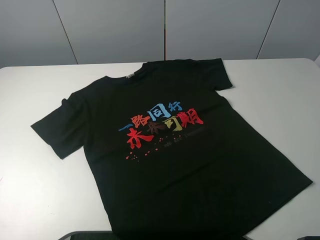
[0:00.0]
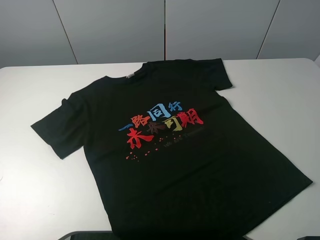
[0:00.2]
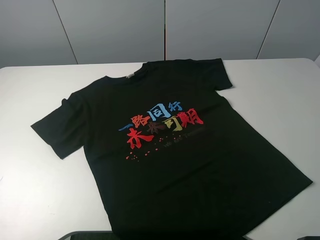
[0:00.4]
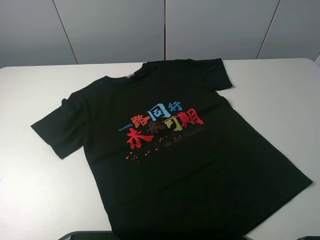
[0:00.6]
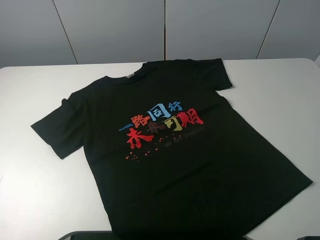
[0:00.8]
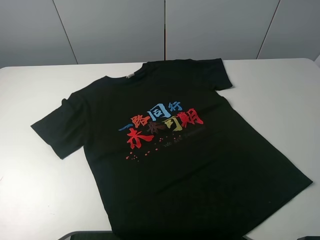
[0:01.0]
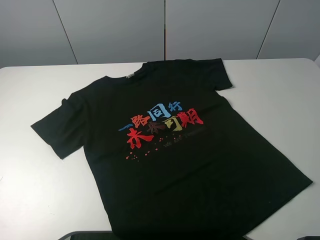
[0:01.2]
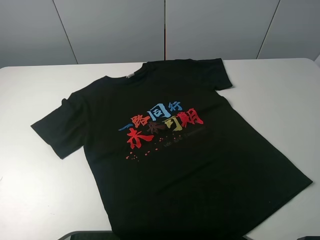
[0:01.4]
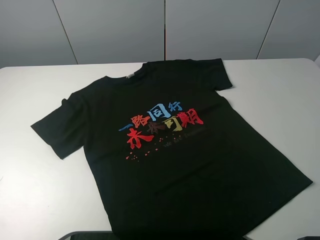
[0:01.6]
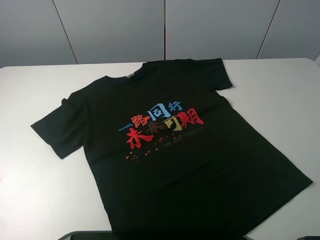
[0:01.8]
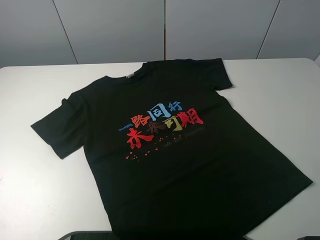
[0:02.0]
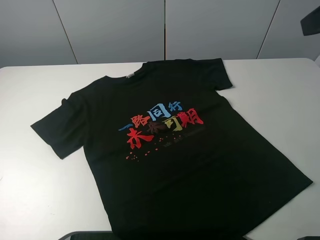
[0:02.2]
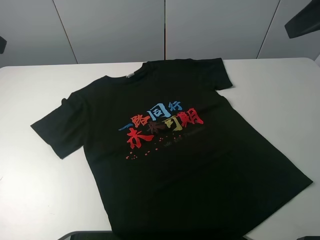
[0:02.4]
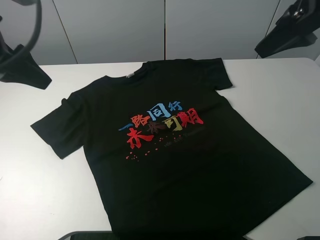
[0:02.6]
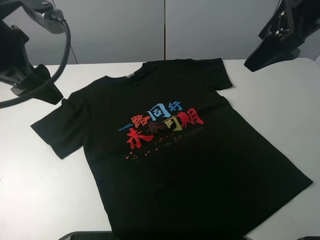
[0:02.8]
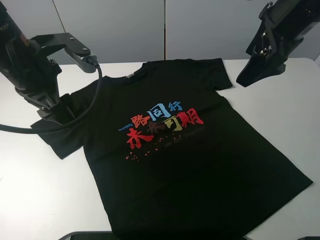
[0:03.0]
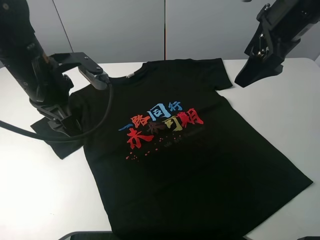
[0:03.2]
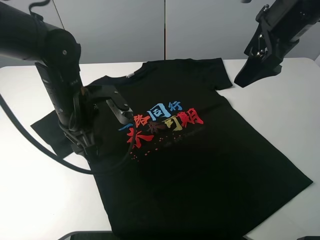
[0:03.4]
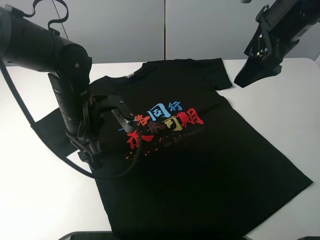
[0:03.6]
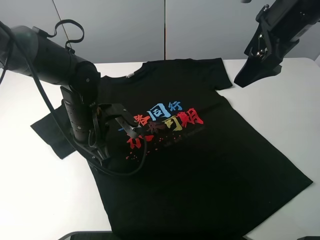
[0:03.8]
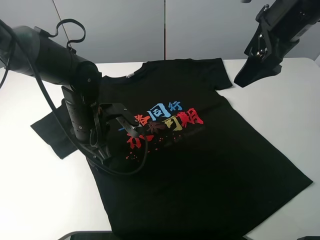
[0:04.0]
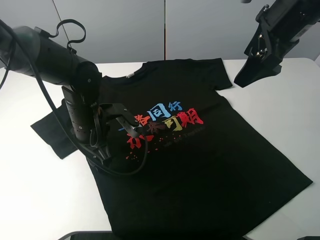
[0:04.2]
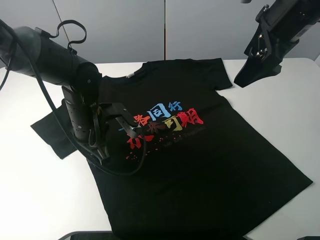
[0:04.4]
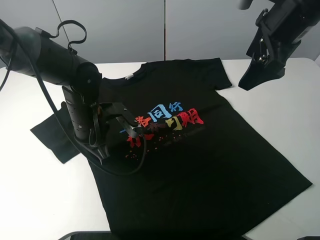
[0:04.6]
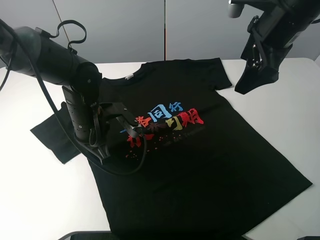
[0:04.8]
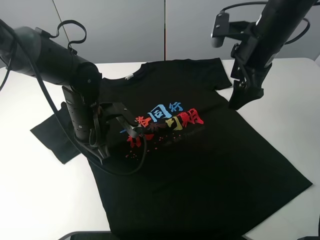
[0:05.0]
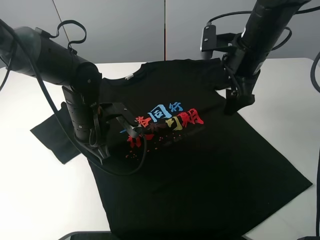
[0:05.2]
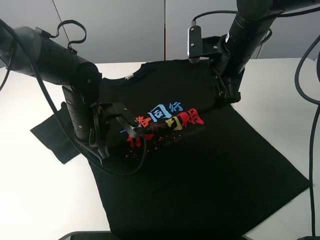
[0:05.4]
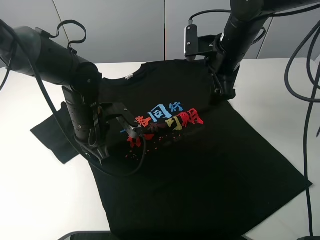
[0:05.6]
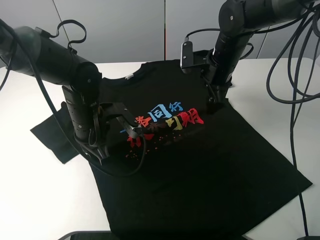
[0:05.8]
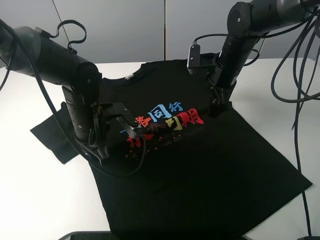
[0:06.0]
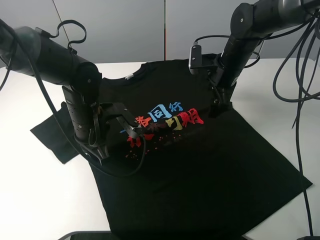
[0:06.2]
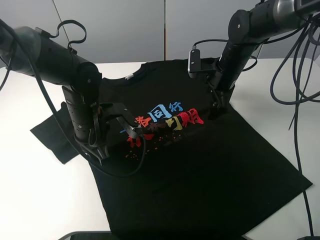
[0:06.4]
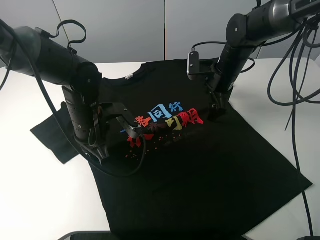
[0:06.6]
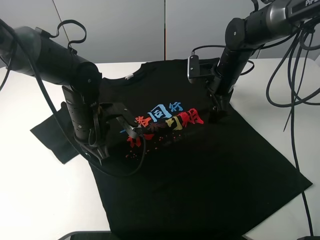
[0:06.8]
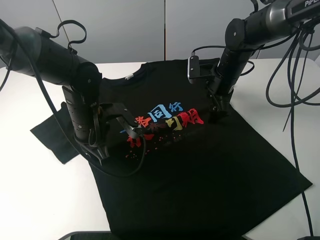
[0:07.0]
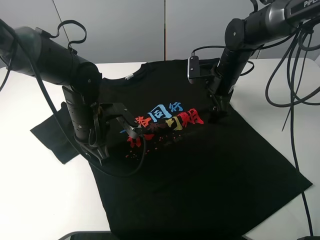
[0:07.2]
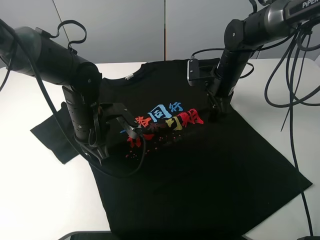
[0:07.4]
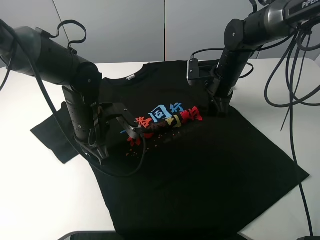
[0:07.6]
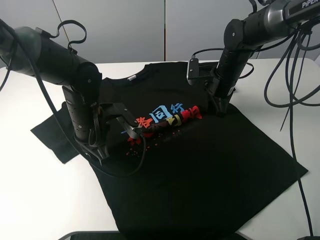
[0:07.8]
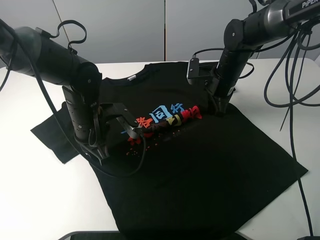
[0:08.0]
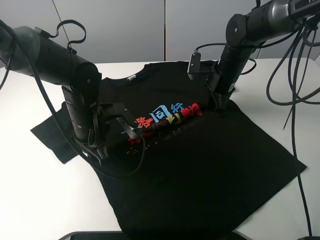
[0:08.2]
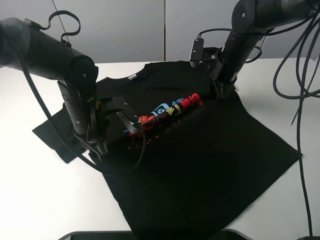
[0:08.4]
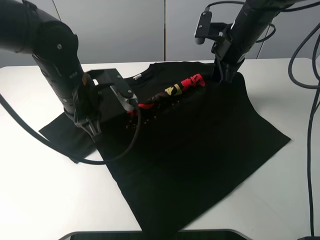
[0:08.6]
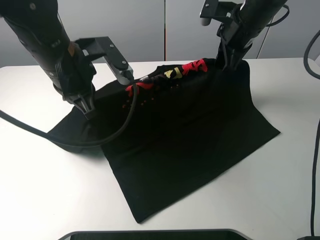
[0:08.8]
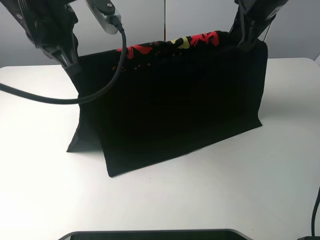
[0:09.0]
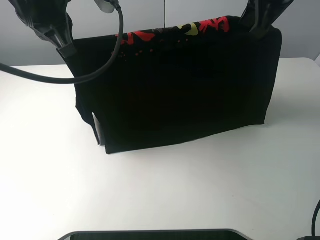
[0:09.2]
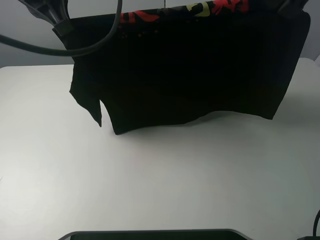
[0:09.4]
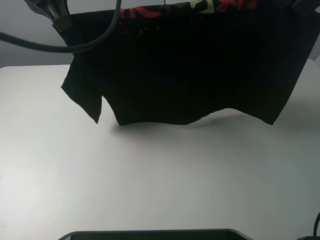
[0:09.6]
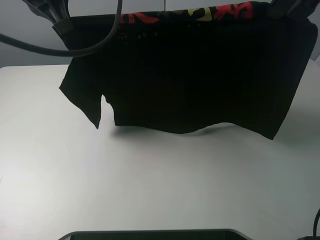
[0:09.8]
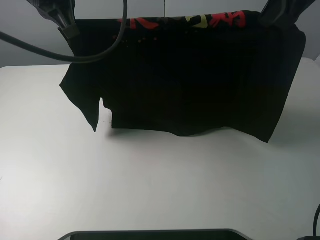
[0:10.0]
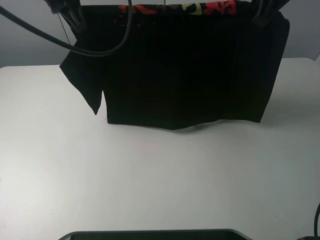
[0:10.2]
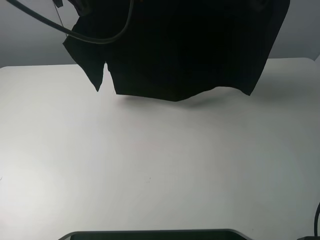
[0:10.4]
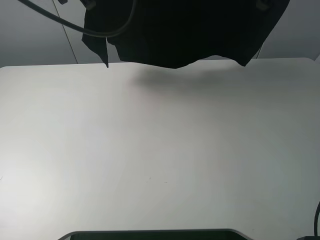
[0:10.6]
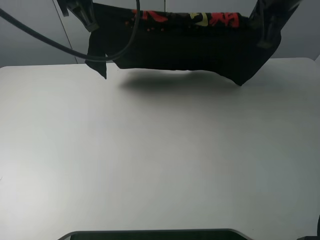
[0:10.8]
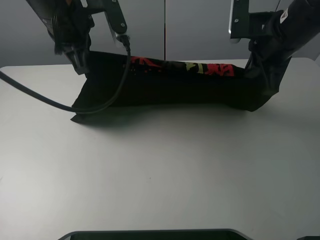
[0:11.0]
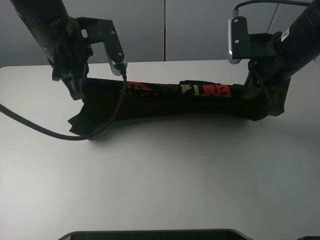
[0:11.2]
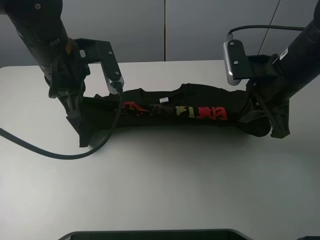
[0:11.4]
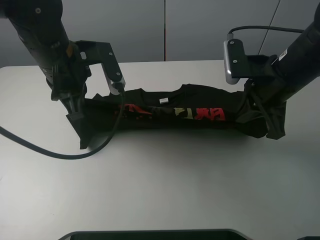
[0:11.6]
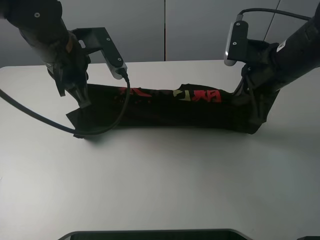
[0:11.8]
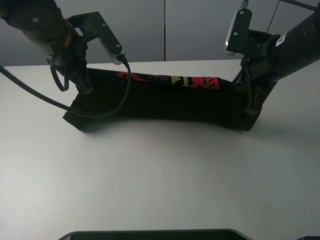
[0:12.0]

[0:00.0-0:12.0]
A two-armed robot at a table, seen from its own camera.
Task of the whole recording: fold the clothes on the table.
Step, 0:00.0 to 0:07.8: Lift the black T-shirt with the left gripper.
0:01.6 to 0:03.0: The right gripper is displaced forward by roughly 25 cm; the left gripper goes some 25 cm forward, to the right and downward.
0:03.0 to 0:04.4: The left gripper goes some 15 cm downward and to the right.
0:04.4 to 0:06.0: The left gripper closes up, while the right gripper is displaced downward and forward by some 15 cm.
0:06.0 to 0:07.6: The right gripper closes.
0:07.6 to 0:09.0: Both grippers travel together upward, some 20 cm.
0:09.0 to 0:10.4: The left gripper goes about 5 cm forward; the right gripper heads upward, covering about 5 cm.
0:10.4 to 0:12.0: The right gripper moves downward and backward, roughly 15 cm. Meanwhile the left gripper heads downward, covering some 10 cm.

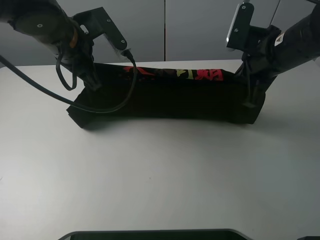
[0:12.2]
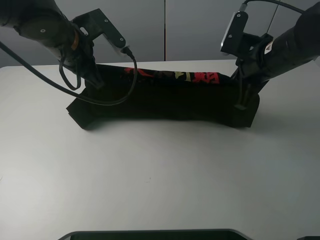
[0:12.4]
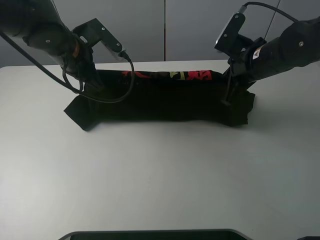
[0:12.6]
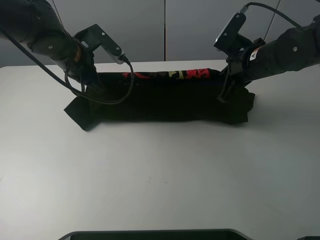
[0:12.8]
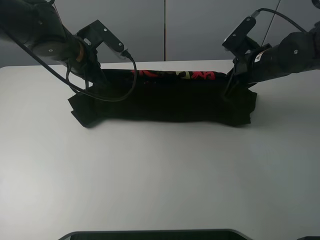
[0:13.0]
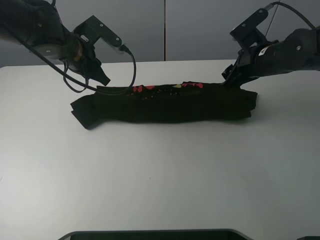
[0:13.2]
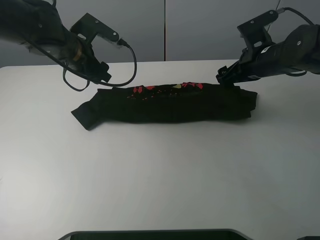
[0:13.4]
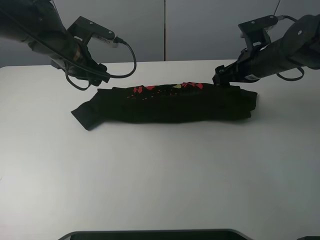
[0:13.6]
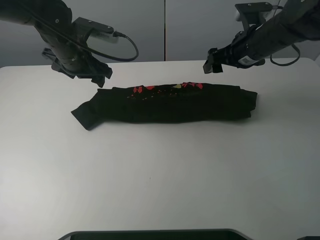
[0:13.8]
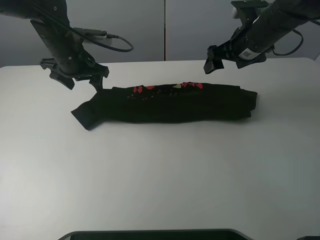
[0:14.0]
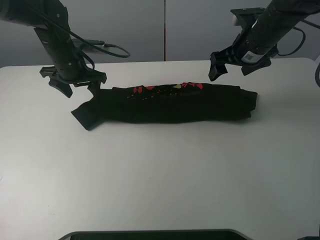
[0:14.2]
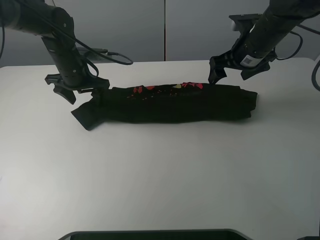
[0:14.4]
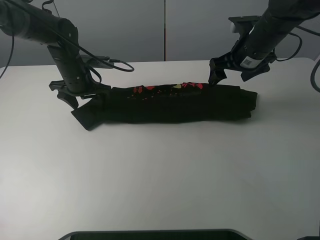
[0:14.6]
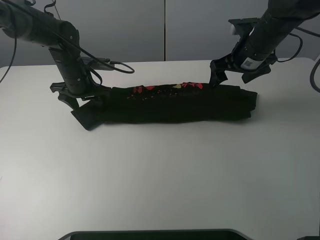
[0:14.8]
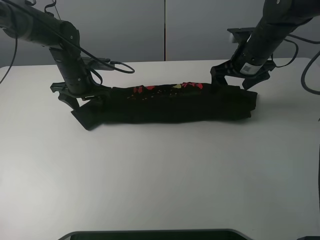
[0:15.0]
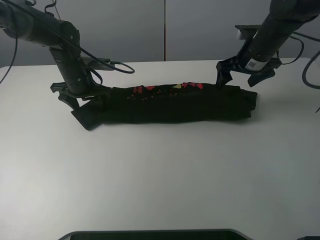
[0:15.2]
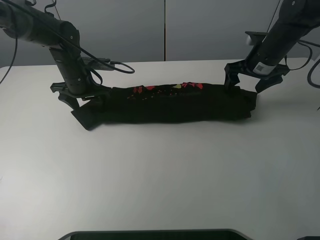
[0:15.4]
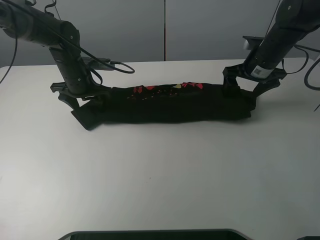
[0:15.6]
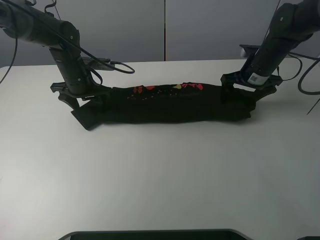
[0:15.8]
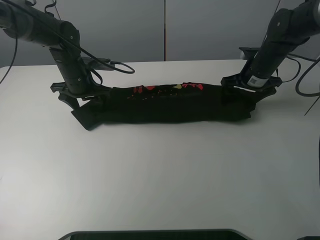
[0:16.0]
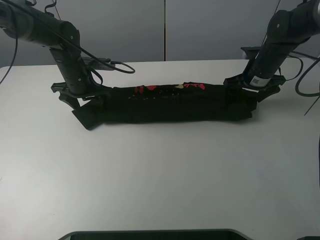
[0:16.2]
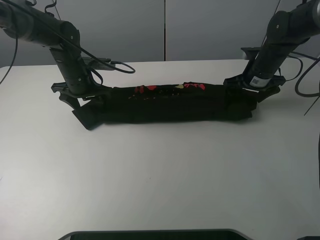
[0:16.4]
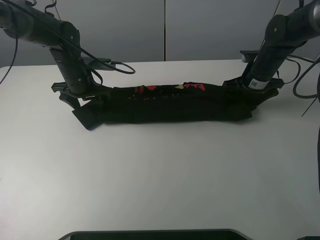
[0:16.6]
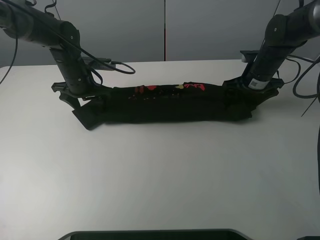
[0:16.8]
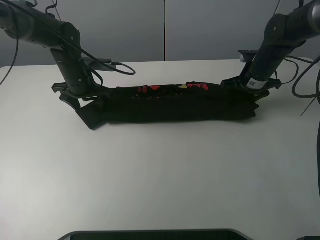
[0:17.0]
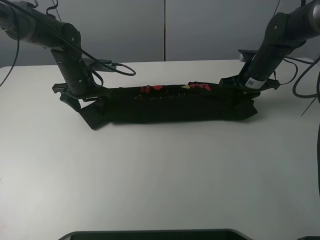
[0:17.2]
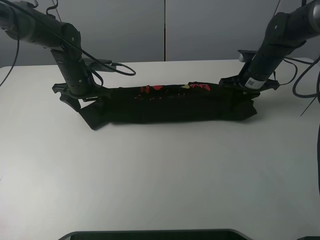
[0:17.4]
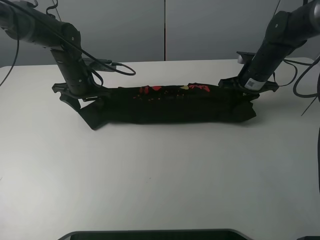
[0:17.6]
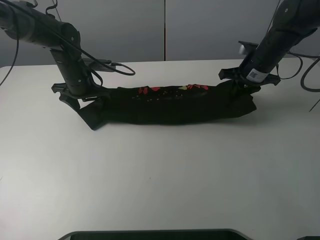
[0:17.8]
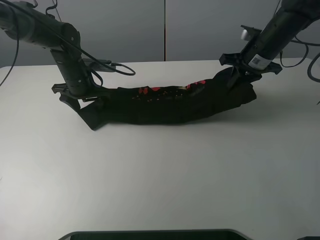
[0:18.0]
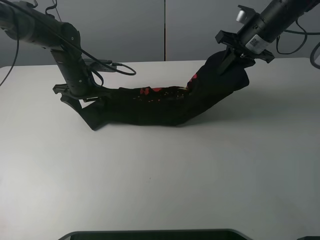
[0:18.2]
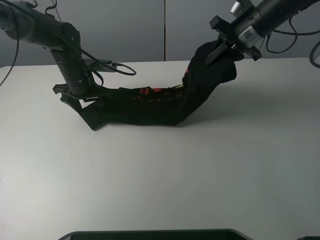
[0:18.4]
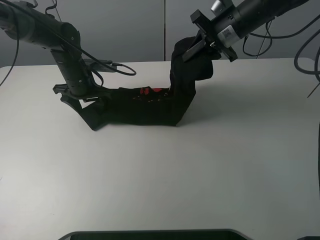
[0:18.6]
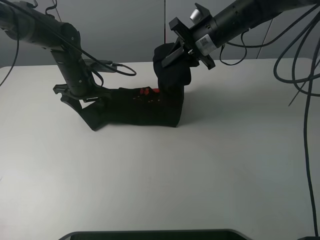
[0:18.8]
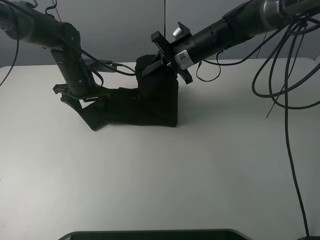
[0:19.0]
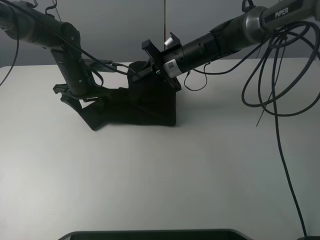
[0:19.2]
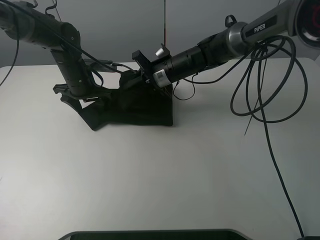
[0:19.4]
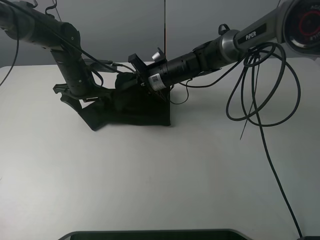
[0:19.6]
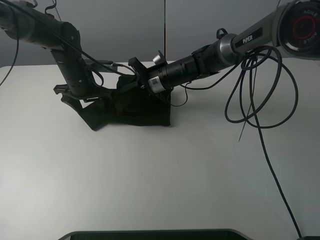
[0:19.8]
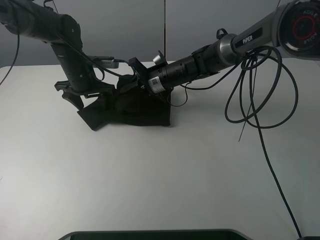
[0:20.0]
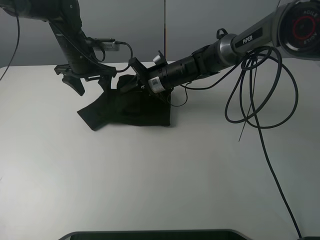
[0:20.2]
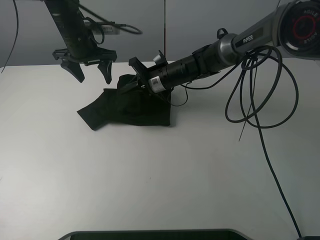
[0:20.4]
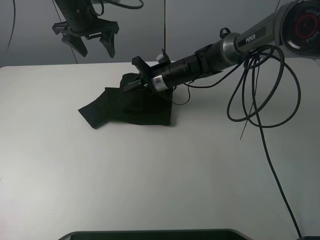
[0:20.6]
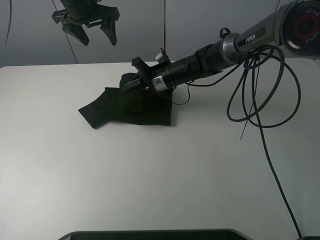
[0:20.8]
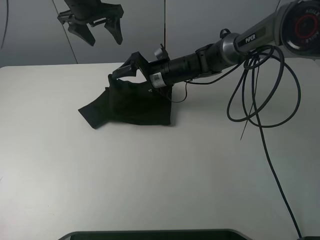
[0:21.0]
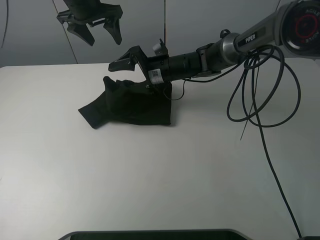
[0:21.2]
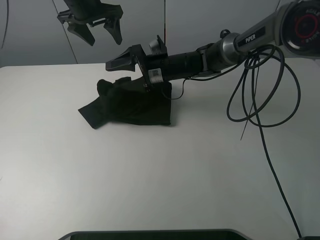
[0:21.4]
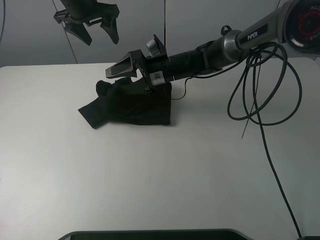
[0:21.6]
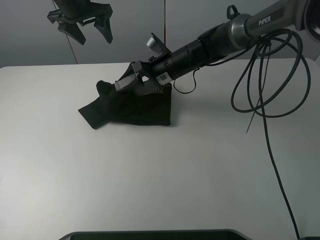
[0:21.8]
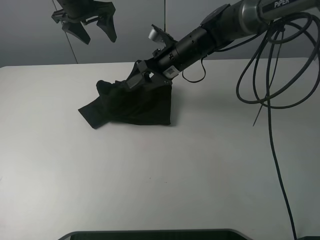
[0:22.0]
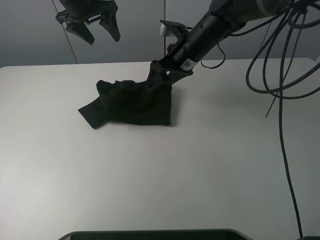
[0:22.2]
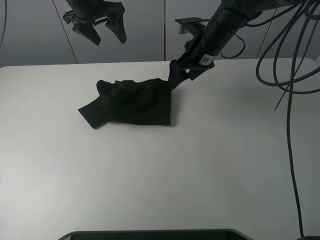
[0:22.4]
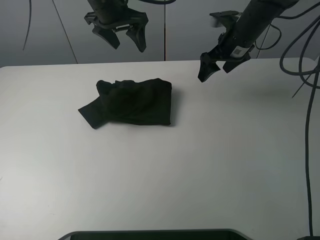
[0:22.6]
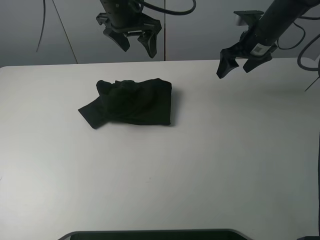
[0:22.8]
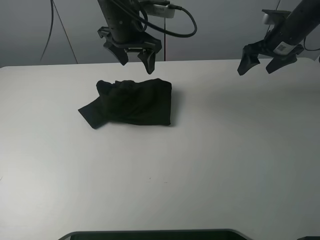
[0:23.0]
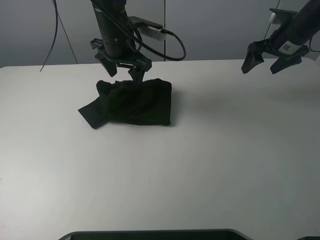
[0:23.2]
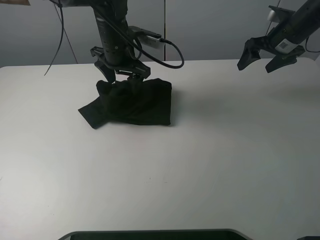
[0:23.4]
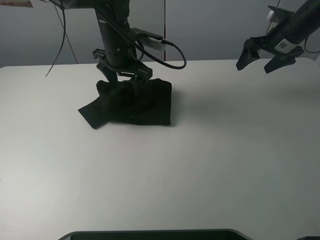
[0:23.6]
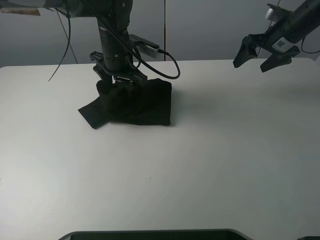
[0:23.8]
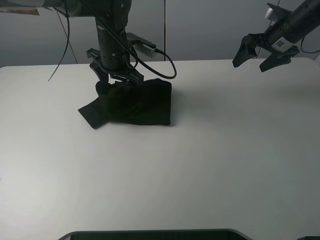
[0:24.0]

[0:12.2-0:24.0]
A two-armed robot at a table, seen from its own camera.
Task of the whole recording: fold the clothes on the table.
Step, 0:13.4 to 0:17.2: Grasp the black T-shirt with the right gripper.
Step, 0:17.4 to 0:21.2: Fold the black T-shirt from right to left with right gripper.
0:12.2 to 0:13.6: The left gripper changes place by roughly 5 cm, and opens. The right gripper shifts some 5 cm forward, and opens up.
0:13.6 to 0:15.2: The left gripper is displaced downward by some 5 cm; the right gripper shifts approximately 5 cm forward.
0:15.2 to 0:16.6: The right gripper shifts roughly 5 cm downward.
0:16.6 to 0:18.2: The right gripper shifts roughly 10 cm upward, and closes its fingers.
0:18.2 to 0:19.6: The right gripper travels to the left and downward by some 20 cm.
0:19.6 to 0:21.0: The left gripper moves upward, roughly 15 cm, while the right gripper opens up.
0:21.0 to 0:22.6: The left gripper is displaced to the right by about 5 cm. The right gripper heads to the right and upward, covering roughly 20 cm.
0:22.6 to 0:24.0: The right gripper is displaced to the right by approximately 10 cm. Meanwhile the left gripper goes about 10 cm downward.
